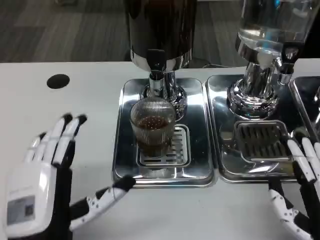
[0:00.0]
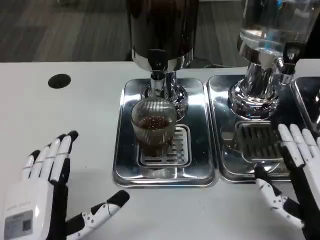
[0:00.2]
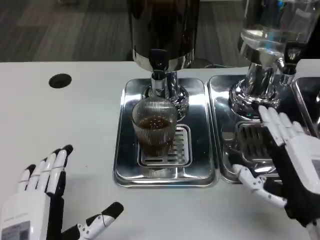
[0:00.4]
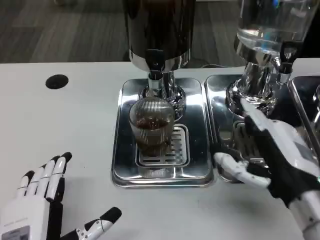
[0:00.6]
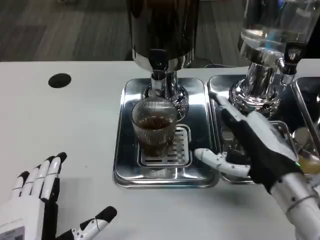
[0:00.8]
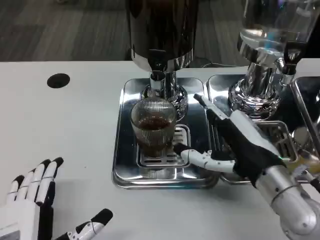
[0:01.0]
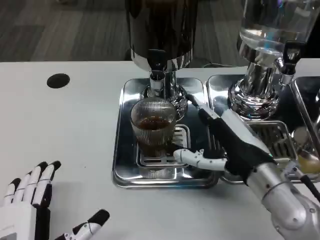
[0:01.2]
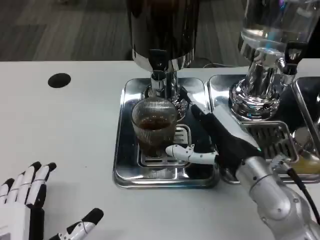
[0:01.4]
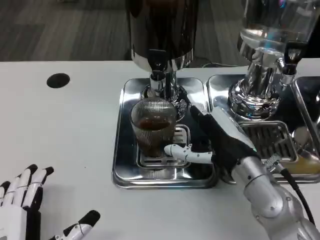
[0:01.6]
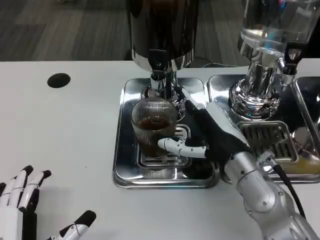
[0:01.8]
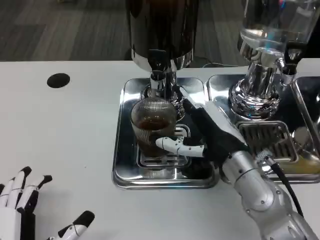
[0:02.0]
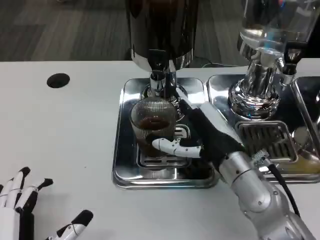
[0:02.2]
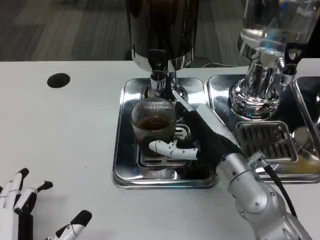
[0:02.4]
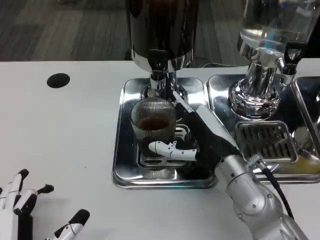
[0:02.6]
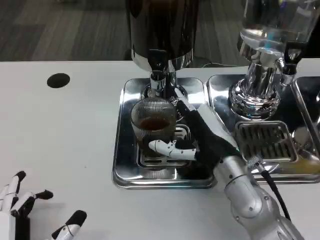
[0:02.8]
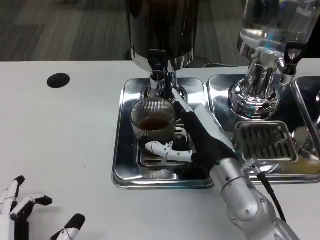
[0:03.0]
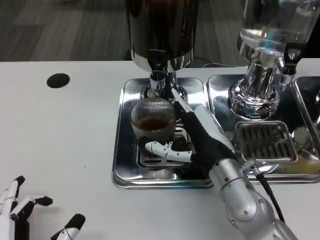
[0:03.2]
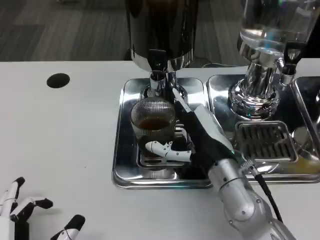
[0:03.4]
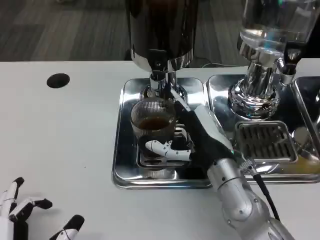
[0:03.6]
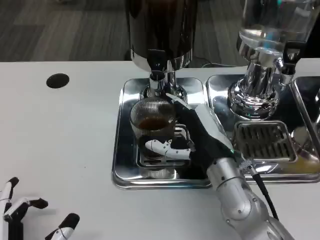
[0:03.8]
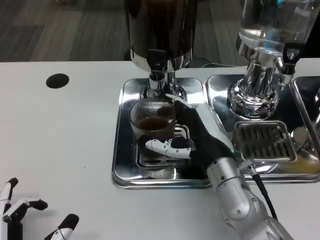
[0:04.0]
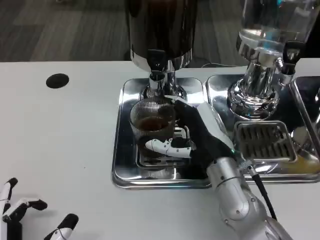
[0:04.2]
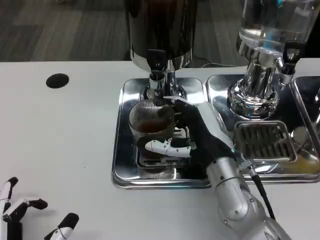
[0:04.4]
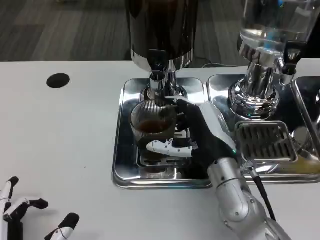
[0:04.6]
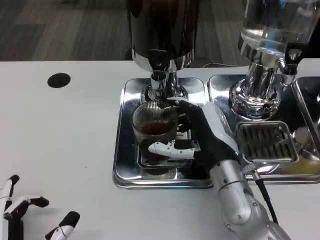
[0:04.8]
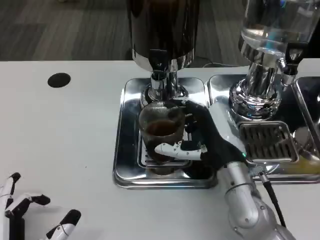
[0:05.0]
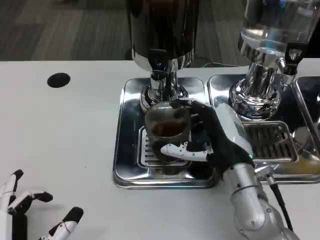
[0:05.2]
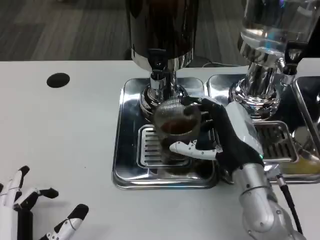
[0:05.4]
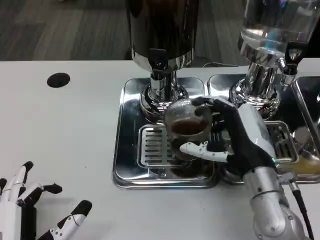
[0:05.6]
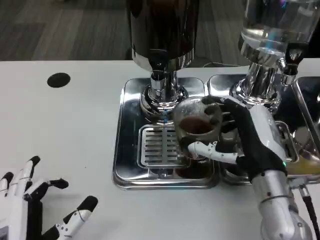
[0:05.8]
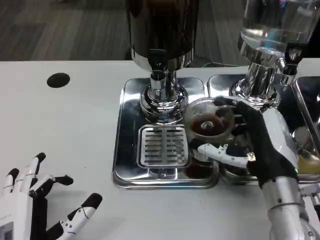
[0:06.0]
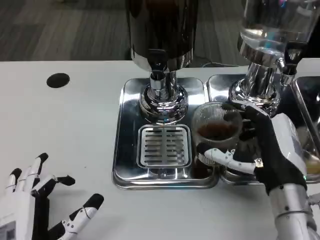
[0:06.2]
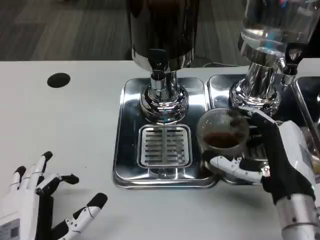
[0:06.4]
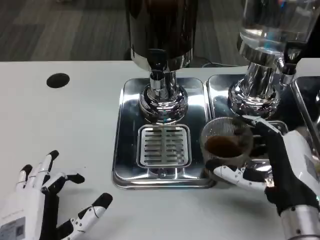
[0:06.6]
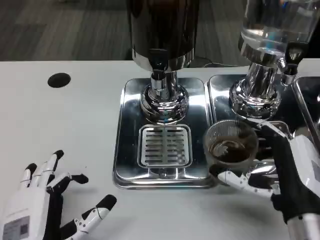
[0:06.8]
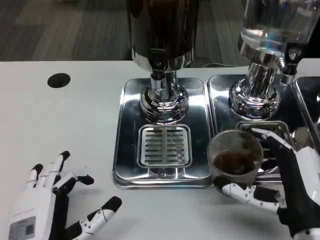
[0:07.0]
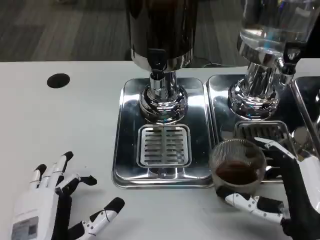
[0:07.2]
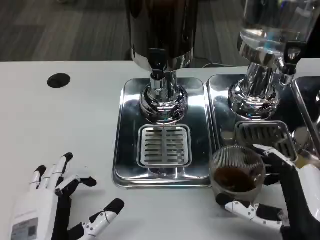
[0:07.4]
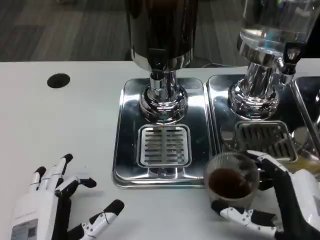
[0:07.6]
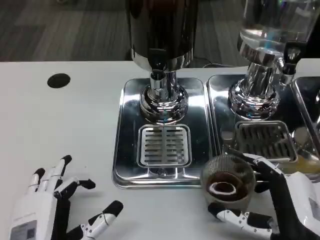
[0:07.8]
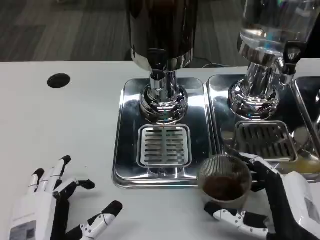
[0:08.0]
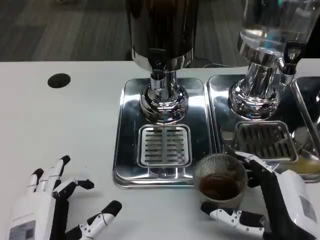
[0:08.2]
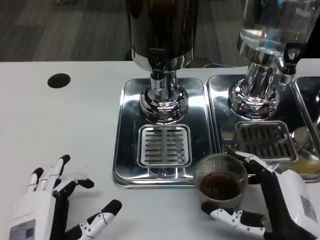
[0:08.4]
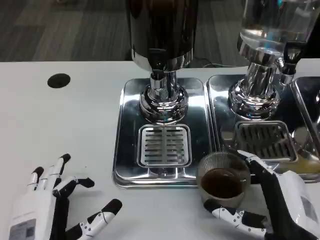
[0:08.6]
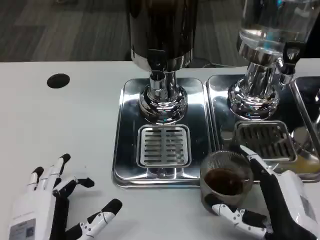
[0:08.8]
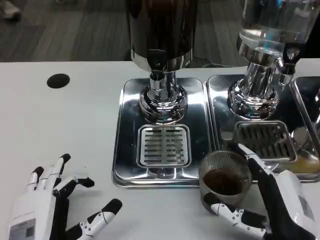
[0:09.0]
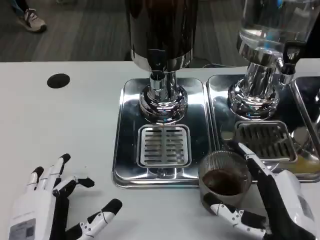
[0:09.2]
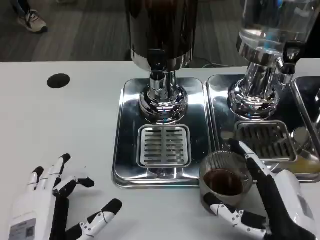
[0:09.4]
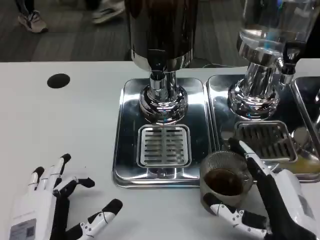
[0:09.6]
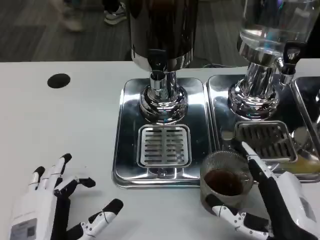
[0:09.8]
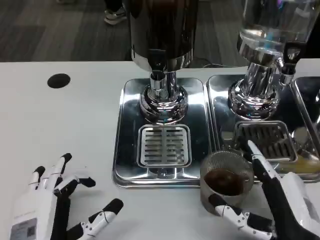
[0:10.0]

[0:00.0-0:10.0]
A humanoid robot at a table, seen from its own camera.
Task of the whole recording: Grasp the cup under the faucet to collect the drink, then remove the cup.
0:00.0 to 0:01.4: The left hand ends up approximately 5 cm from where it was. The right hand travels forward and to the left by about 15 cm.
0:01.4 to 0:04.2: The hands move only a little.
0:04.2 to 0:05.8: The right hand is displaced to the right by roughly 5 cm.
0:05.8 to 0:07.2: The right hand goes about 10 cm backward.
0:07.2 to 0:10.0: The hands move only a little.

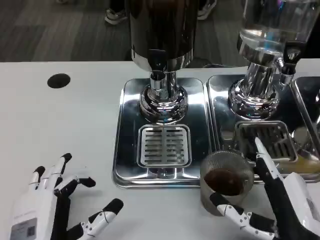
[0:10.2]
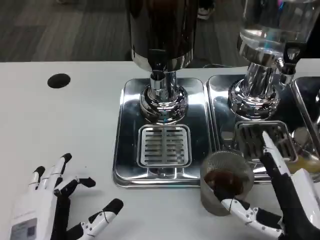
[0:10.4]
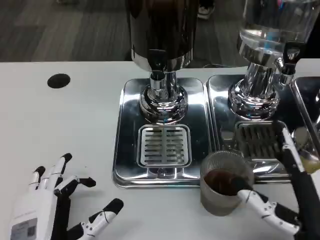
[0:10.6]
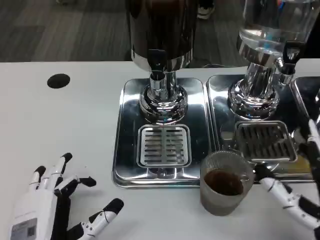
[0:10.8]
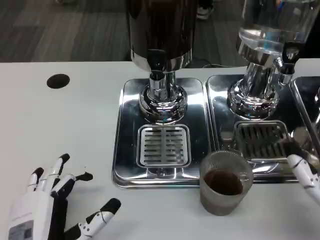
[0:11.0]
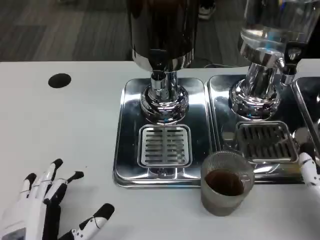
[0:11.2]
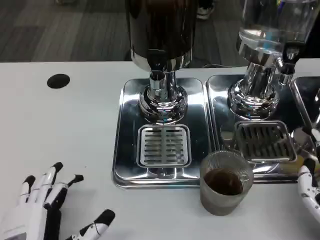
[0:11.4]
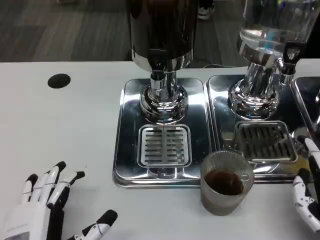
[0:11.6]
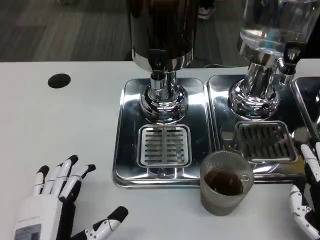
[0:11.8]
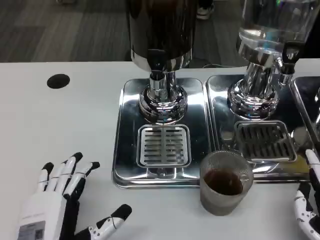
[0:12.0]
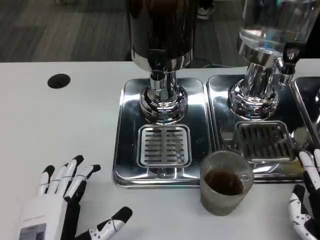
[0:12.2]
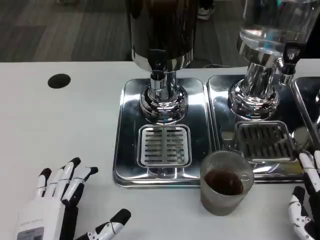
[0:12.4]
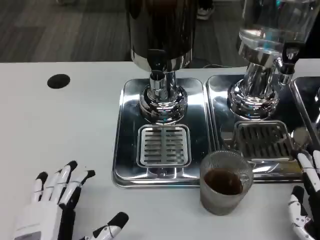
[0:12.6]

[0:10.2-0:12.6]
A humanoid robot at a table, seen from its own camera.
Task of the whole recording: Grasp the cup under the faucet to collect the drink, then remove the cup.
0:10.2 to 0:11.4: The right hand moves to the right, roughly 5 cm.
0:11.4 to 0:12.6: There are only small adjustments of the hands.
